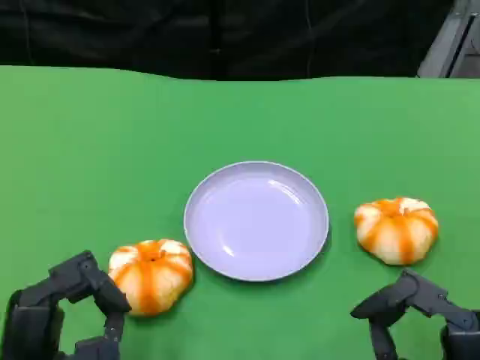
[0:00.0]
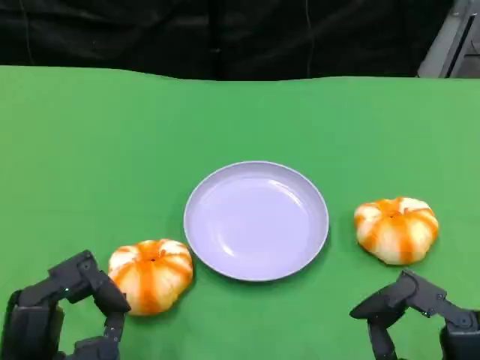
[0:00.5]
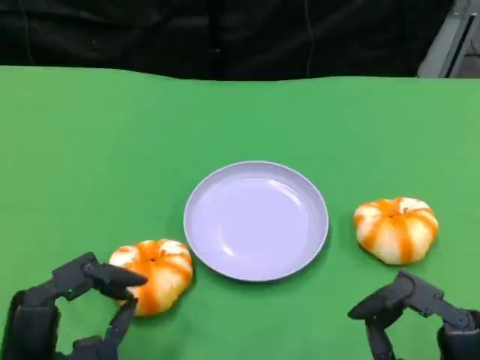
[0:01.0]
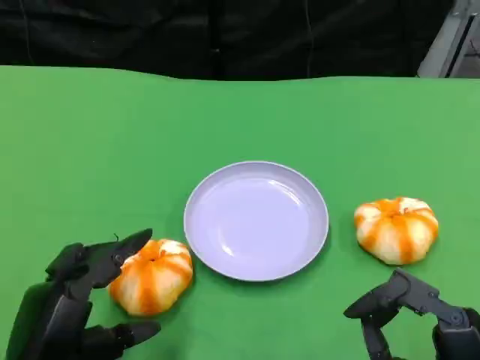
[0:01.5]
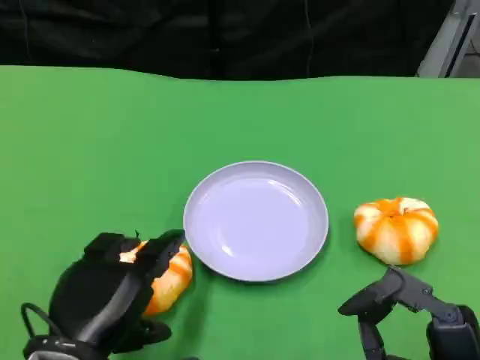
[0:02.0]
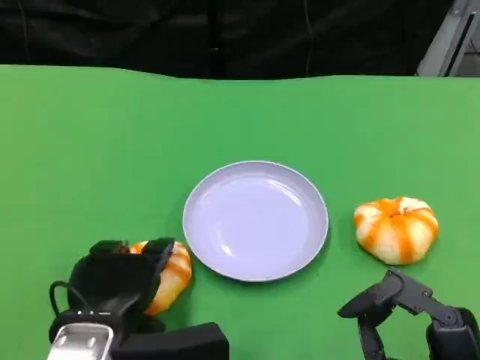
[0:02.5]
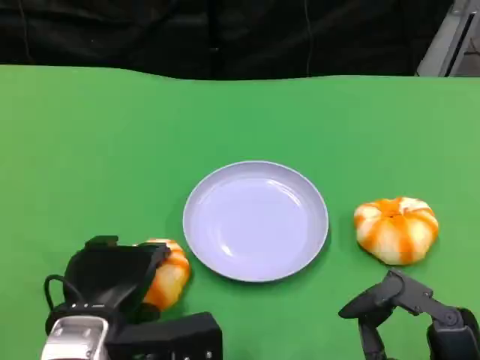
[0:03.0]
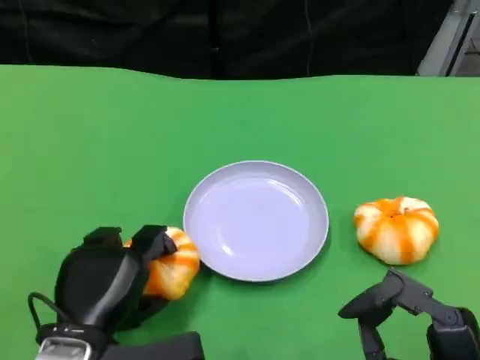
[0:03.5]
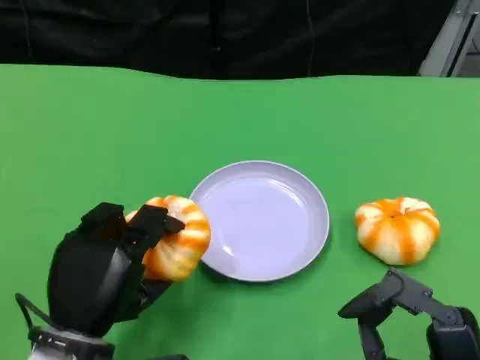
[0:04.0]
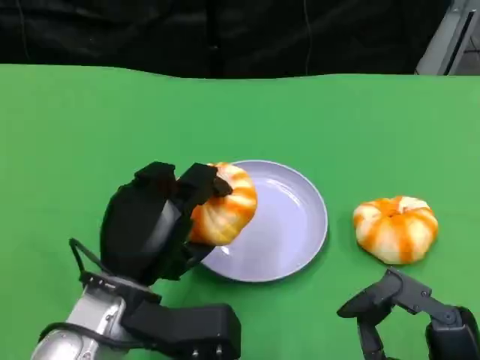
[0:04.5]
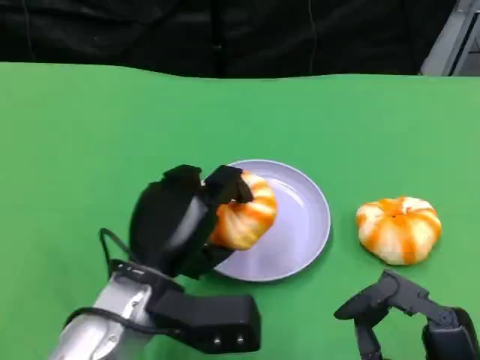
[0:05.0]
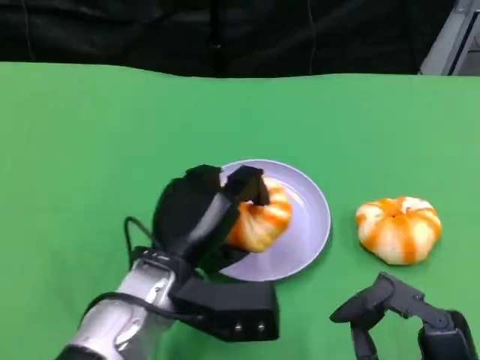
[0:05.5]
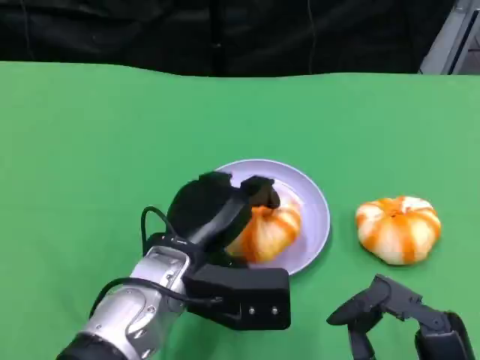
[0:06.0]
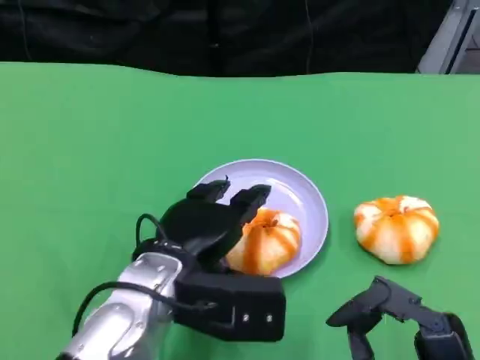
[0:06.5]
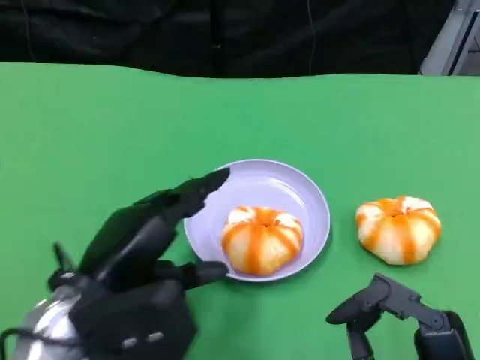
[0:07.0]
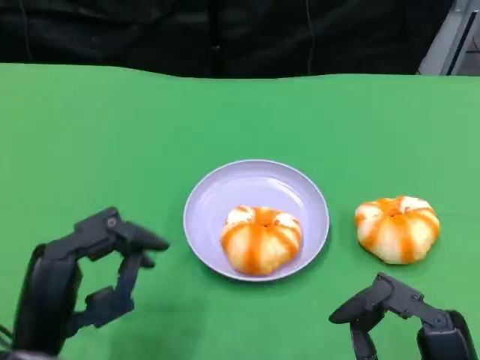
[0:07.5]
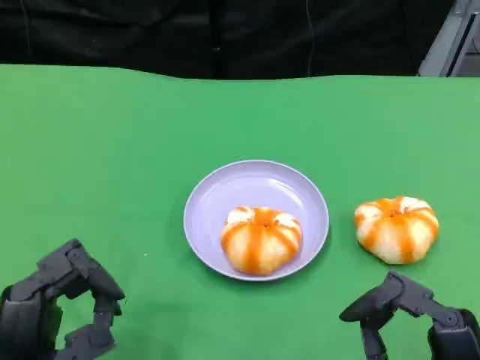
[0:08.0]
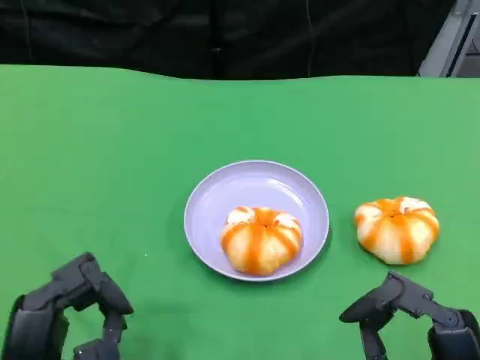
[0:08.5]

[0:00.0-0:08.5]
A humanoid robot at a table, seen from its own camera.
Task of the whole recording: Grasp the bread from the table and place it into the plate.
0:00.0 to 0:02.0: The left hand shifts by some 5 cm.
0:04.0 to 0:06.5: The left hand heads to the right, covering approximately 10 cm.
0:06.5 to 0:08.5: The left hand is displaced backward and to the left by some 15 cm.
